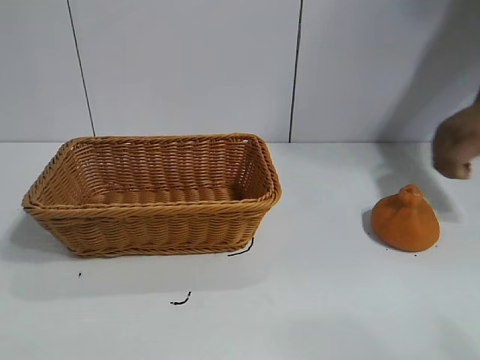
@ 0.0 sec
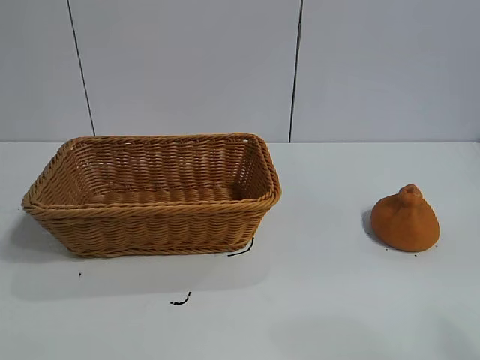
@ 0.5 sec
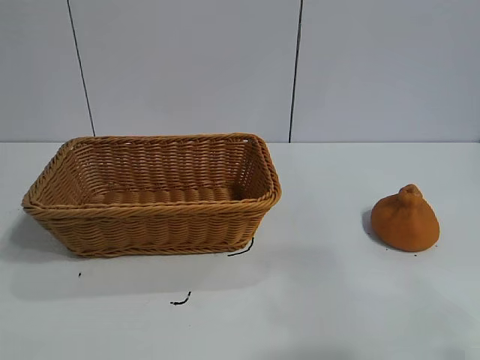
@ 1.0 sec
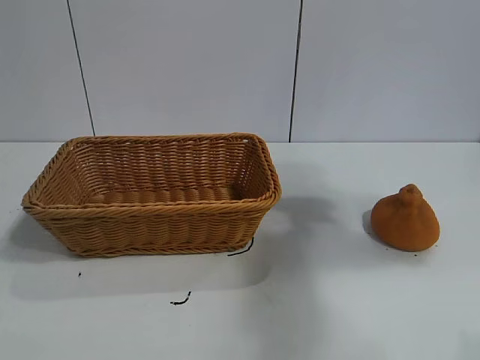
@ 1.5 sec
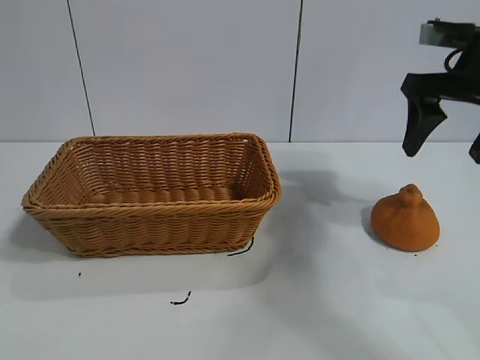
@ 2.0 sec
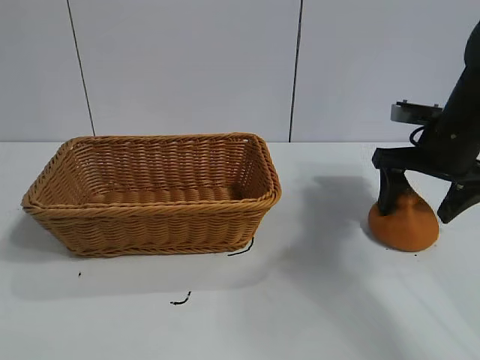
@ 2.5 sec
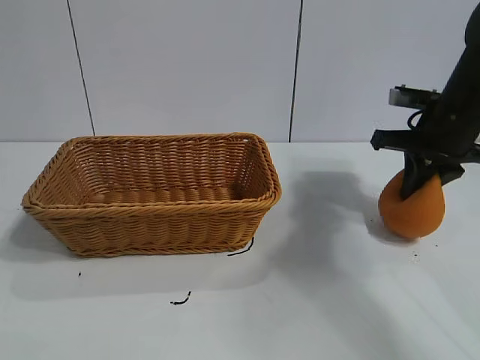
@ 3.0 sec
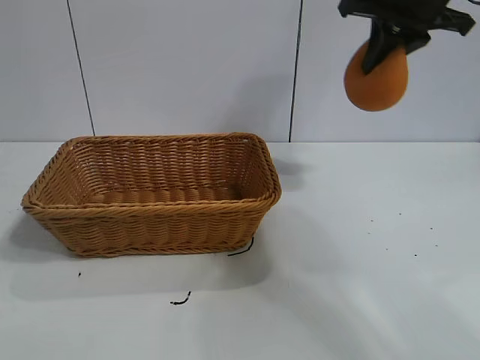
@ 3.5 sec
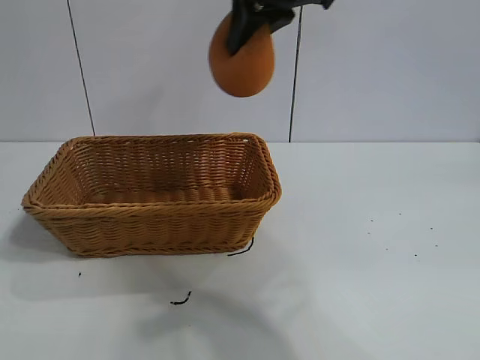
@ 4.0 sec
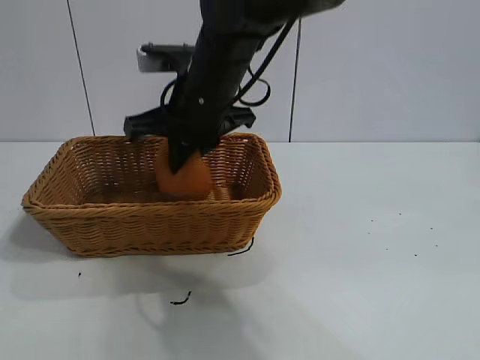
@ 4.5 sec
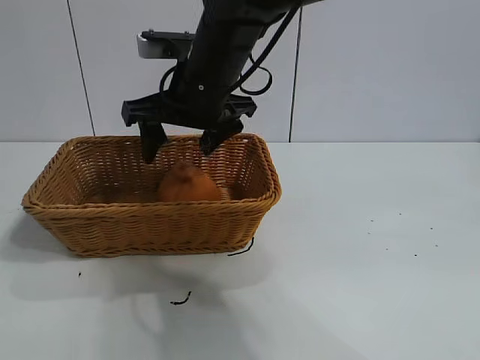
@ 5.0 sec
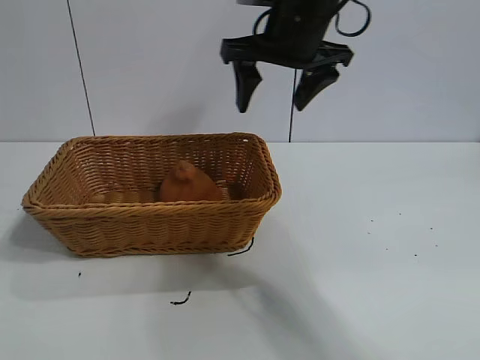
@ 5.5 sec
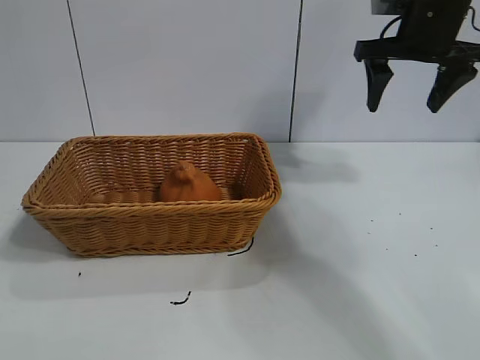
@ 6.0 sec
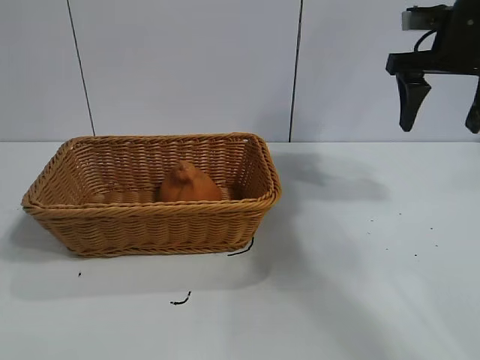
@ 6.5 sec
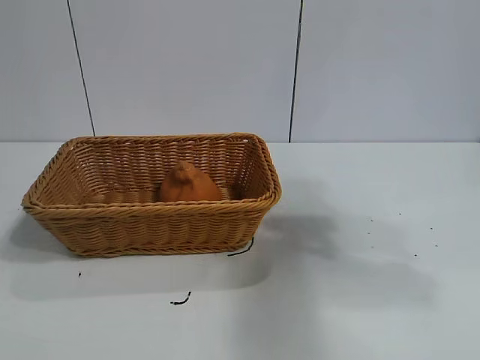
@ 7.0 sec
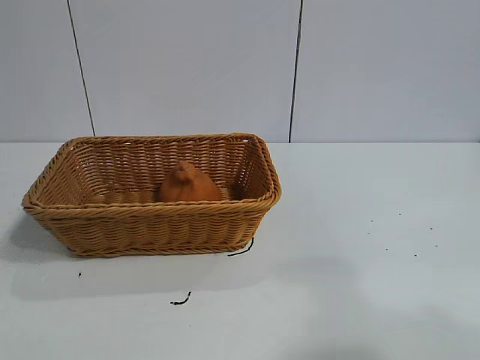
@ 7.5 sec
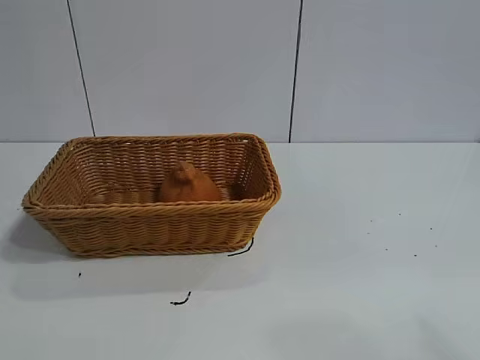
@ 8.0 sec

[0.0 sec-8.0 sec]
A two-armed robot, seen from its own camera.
Task of the whole recording: pick up the orange and put it into the basket.
Step, 1.0 sec to 3.0 sec: Grasp the orange with right gripper.
Step, 3.5 sec to 4.5 sec: Place the orange in the basket with right gripper.
